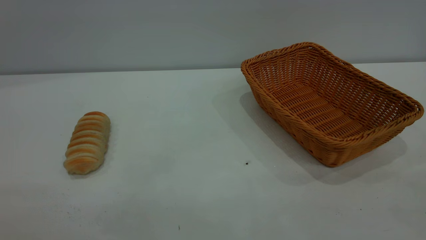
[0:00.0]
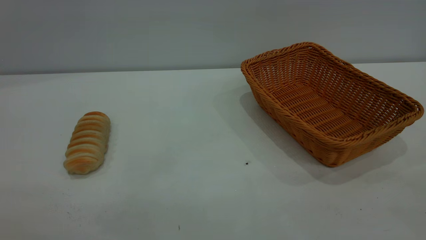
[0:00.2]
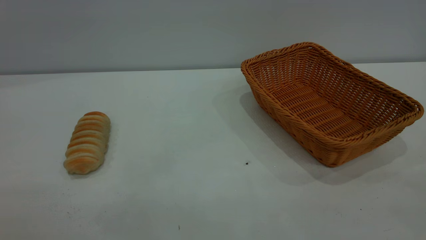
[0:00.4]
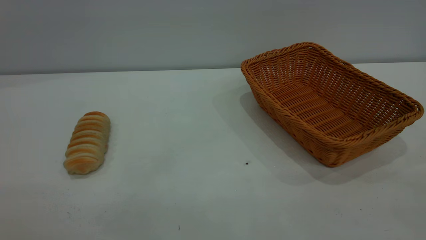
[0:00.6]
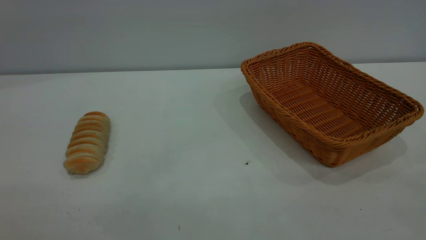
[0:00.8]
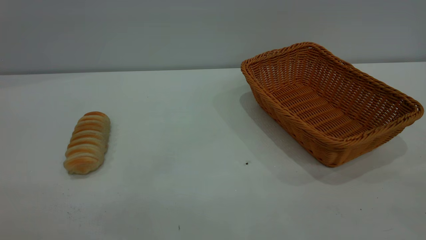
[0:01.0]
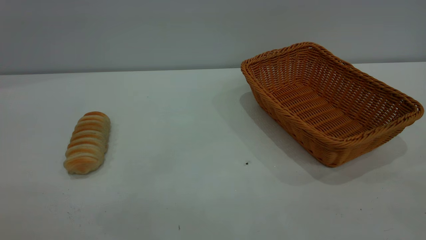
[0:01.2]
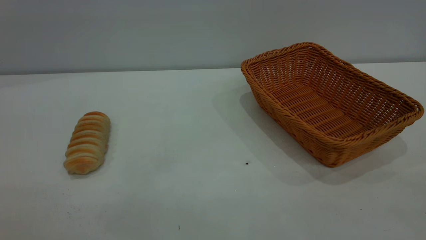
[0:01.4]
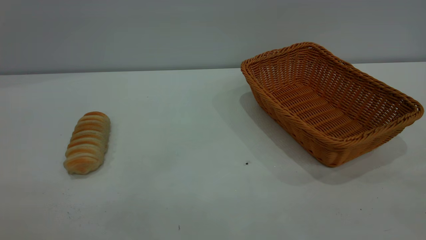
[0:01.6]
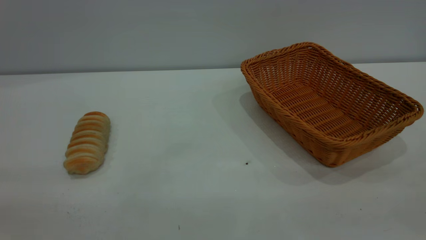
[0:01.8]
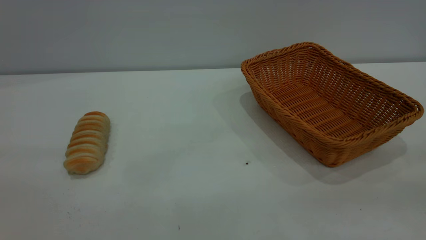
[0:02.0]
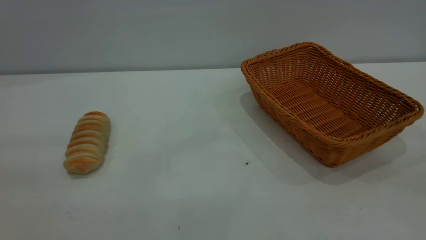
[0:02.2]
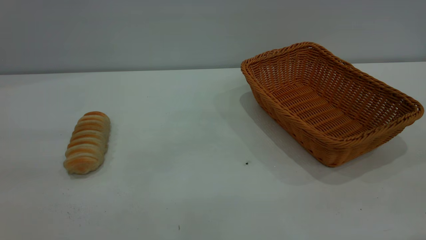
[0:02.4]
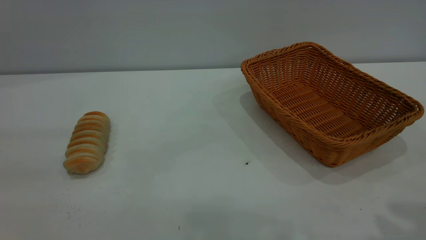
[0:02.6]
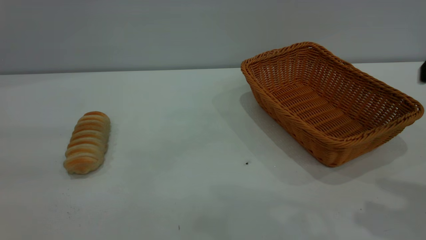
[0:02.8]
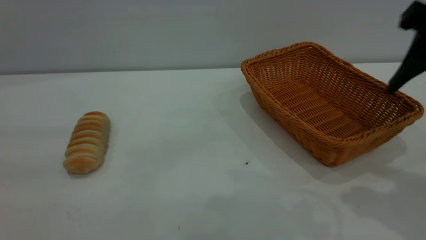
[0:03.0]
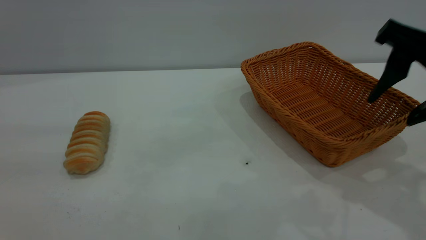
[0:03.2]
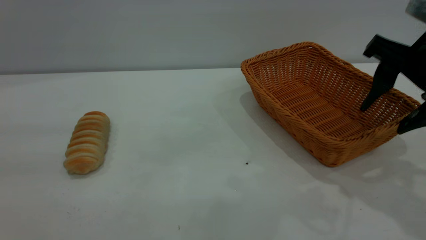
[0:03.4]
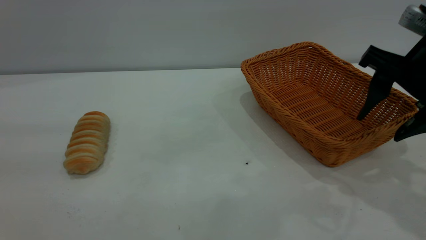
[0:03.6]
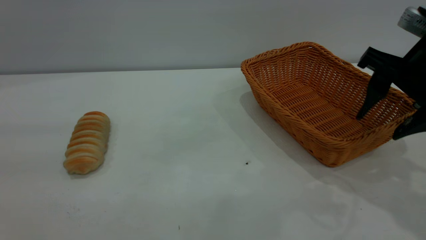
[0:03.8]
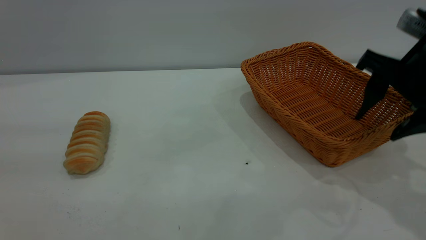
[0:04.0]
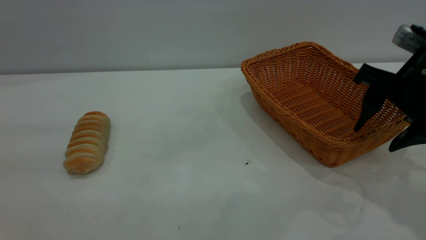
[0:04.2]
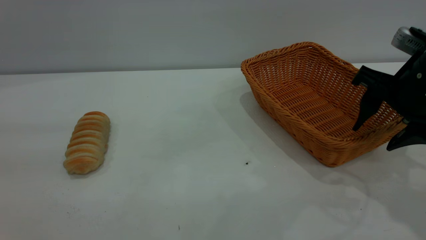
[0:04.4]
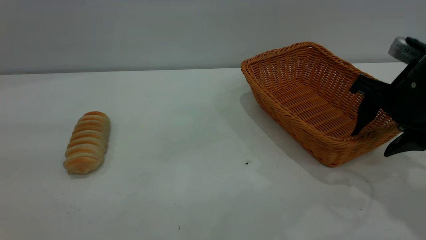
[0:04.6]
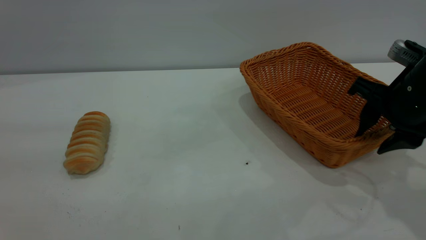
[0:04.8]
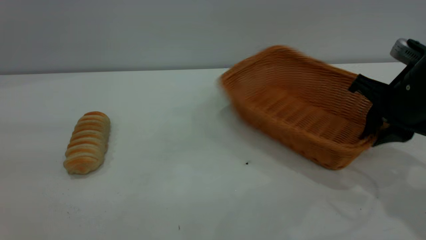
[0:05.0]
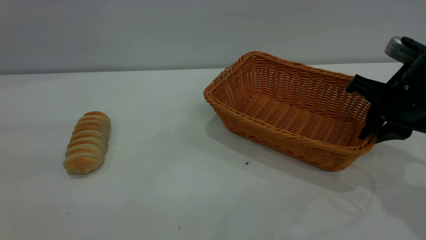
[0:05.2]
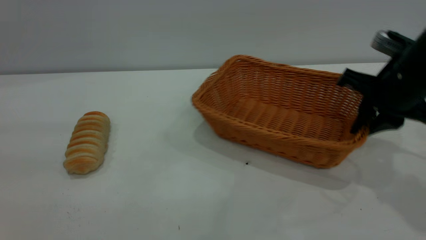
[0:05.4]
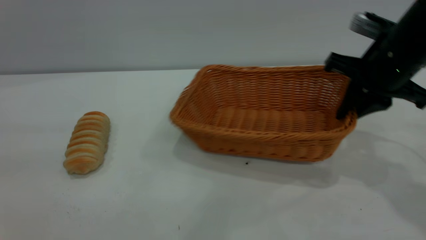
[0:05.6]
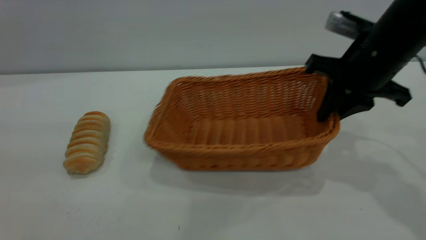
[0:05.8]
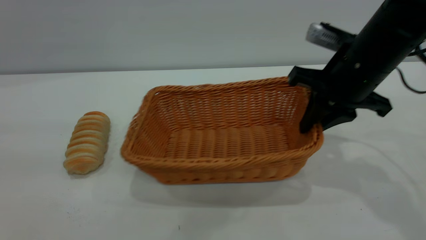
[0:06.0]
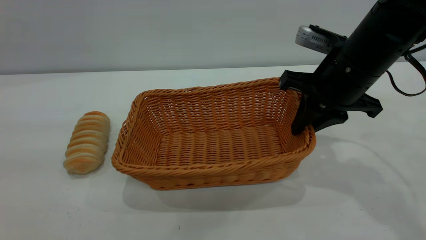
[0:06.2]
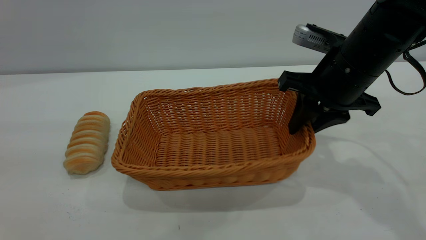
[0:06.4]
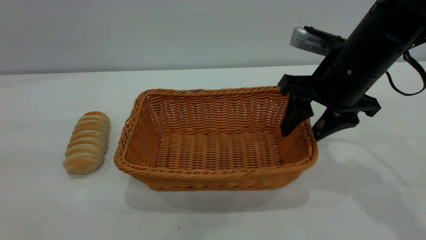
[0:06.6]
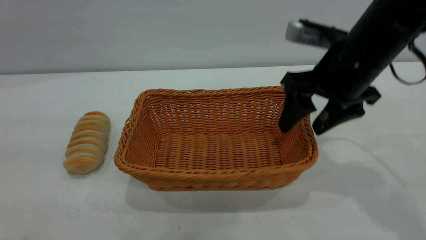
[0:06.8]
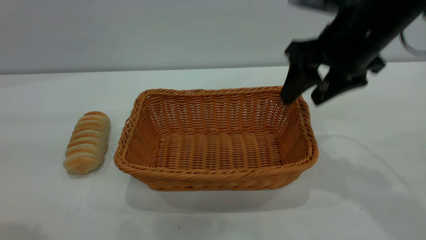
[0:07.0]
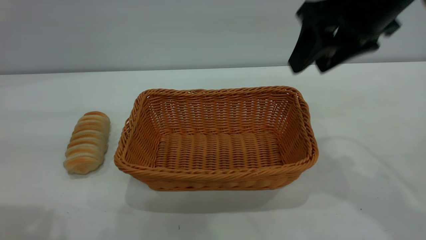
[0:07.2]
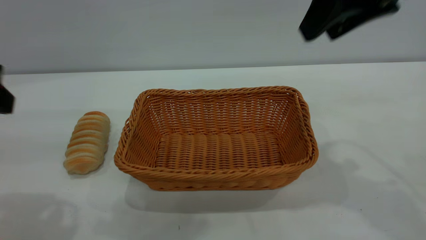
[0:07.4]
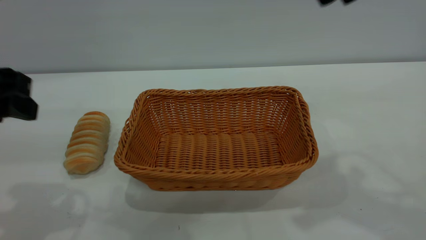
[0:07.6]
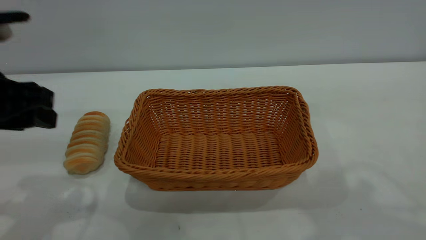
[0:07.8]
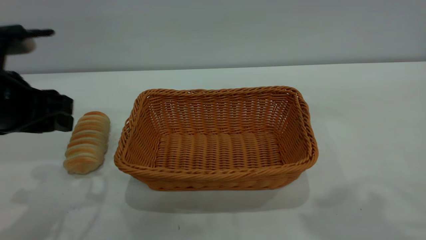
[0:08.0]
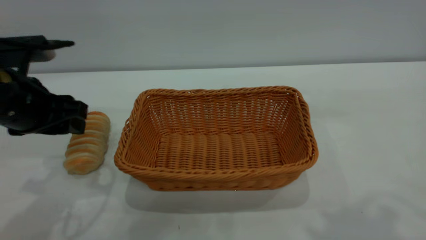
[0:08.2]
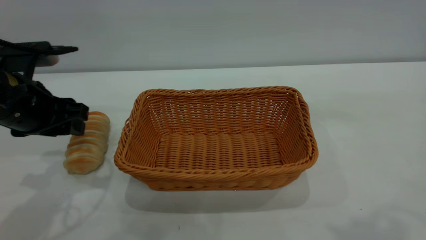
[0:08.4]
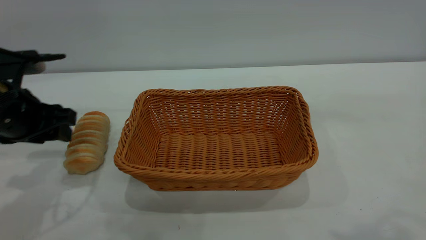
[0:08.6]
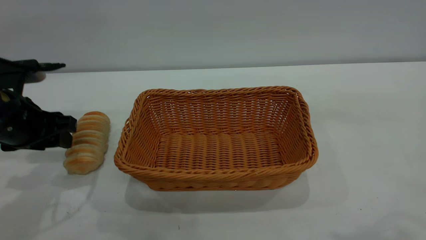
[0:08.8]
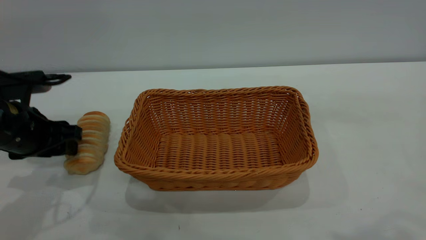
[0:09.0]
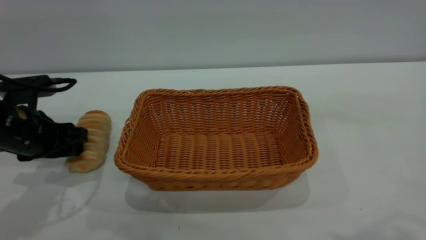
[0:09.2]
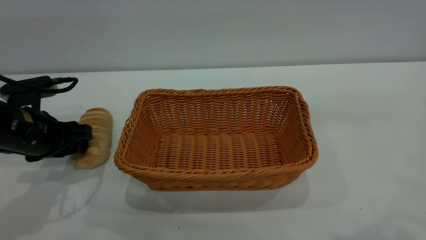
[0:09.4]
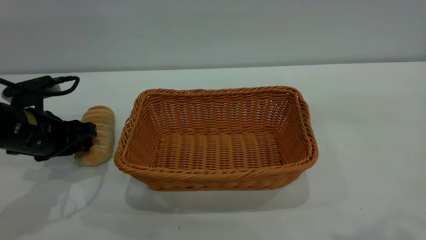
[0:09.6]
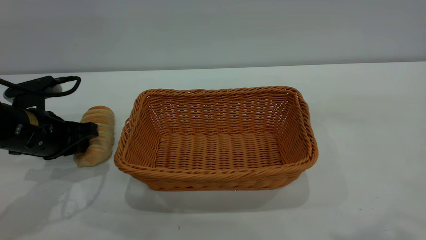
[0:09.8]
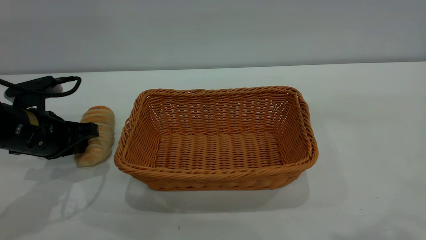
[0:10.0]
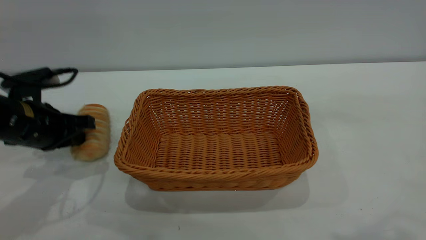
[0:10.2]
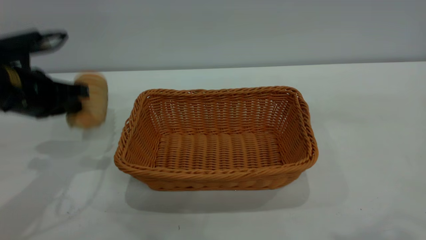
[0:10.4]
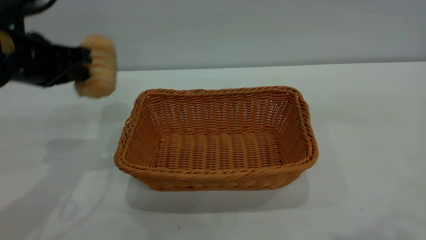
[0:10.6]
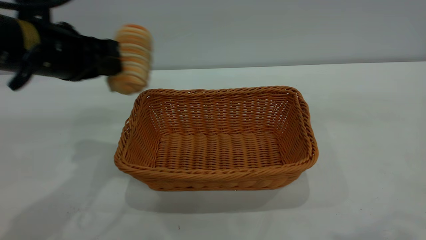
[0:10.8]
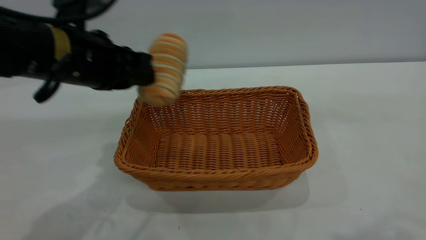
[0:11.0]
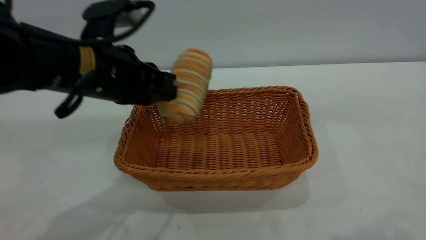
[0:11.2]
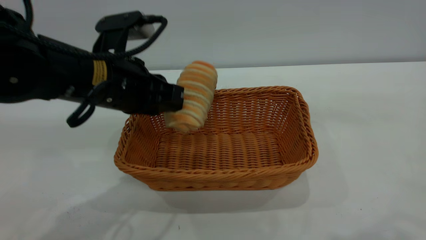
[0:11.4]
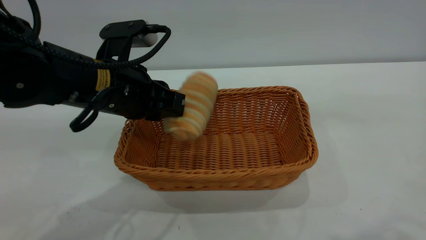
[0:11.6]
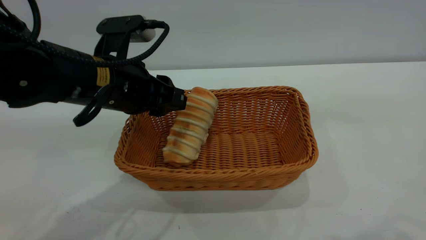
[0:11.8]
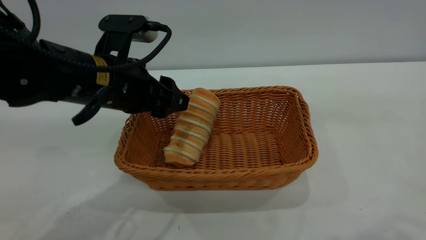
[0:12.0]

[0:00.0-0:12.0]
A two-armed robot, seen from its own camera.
Task of the whole recording: One hand grasps the yellow basket and places it in the middle of the table, while the other hand picks up the long bread and puts it into the yellow basket.
Step, 0:00.0 to 0:07.2: Move the basket to the center of view.
0:01.6 to 0:03.0: The right gripper travels forward by some 25 cm.
0:03.0 to 0:04.4: The right gripper heads downward and forward, covering roughly 10 cm.
0:04.4 to 0:06.0: The right gripper travels to the left by some 5 cm, and closes.
0:06.0 to 0:07.6: The right gripper travels upward and backward by some 20 cm, and opens up. Meanwhile the left gripper shifts roughly 15 cm forward and downward.
0:07.6 to 0:09.0: The left gripper goes roughly 15 cm downward and forward.
0:09.0 to 0:10.4: The left gripper travels upward by about 5 cm, and closes its fingers.
0:10.4 to 0:12.0: The left gripper moves to the right, roughly 15 cm, and opens.

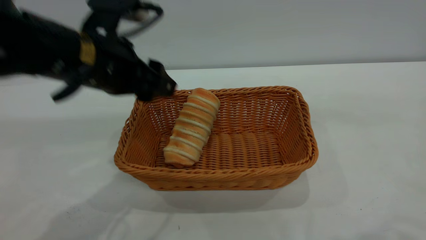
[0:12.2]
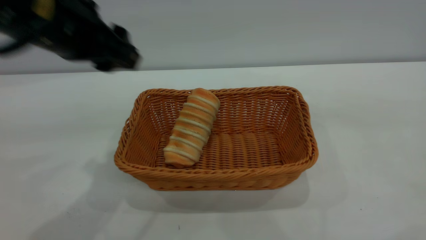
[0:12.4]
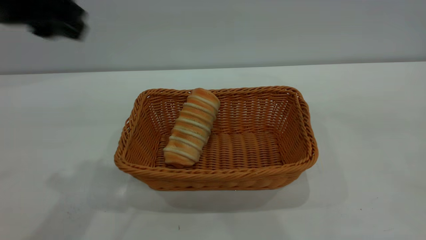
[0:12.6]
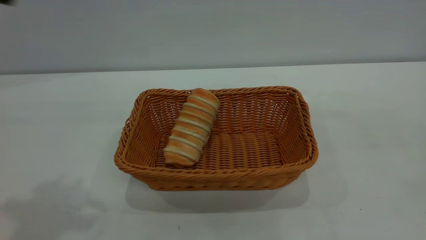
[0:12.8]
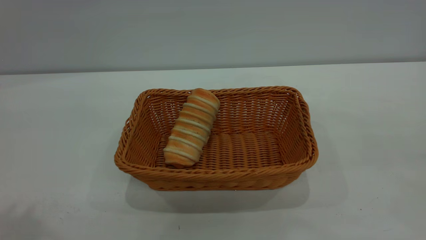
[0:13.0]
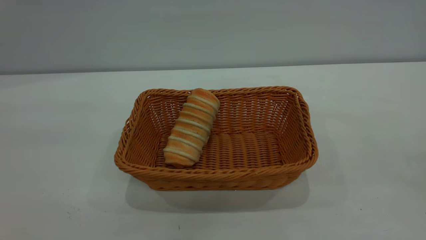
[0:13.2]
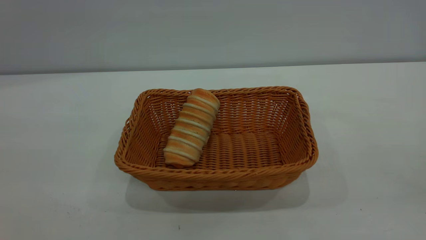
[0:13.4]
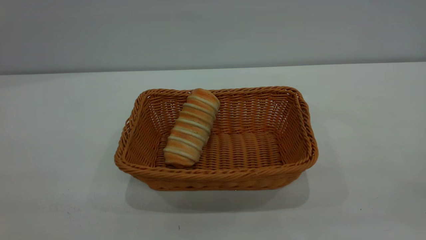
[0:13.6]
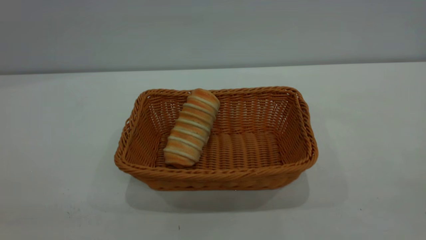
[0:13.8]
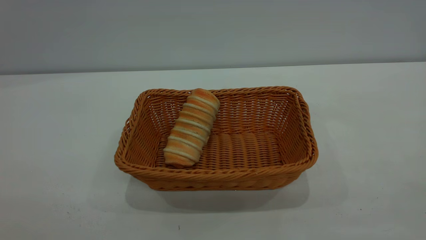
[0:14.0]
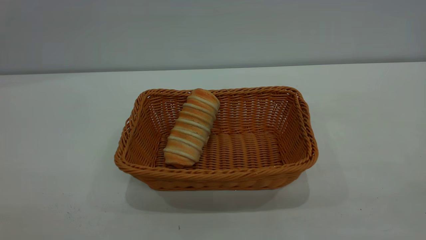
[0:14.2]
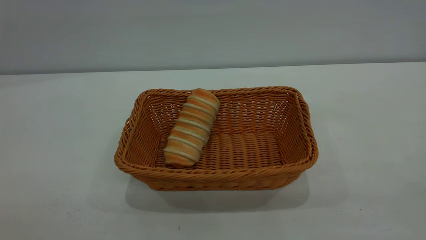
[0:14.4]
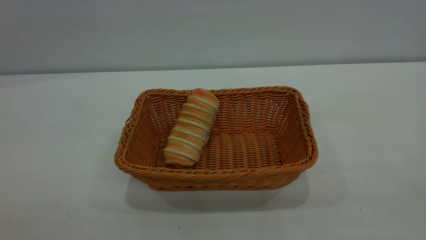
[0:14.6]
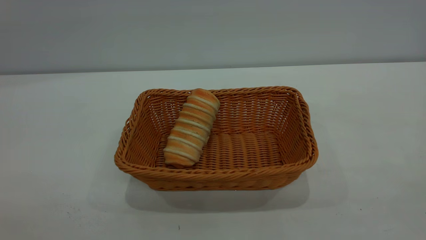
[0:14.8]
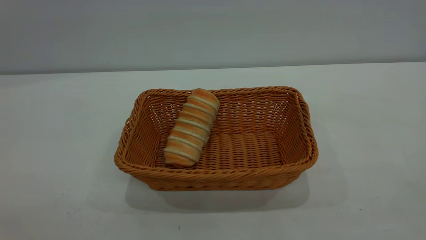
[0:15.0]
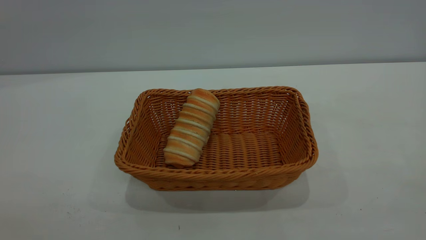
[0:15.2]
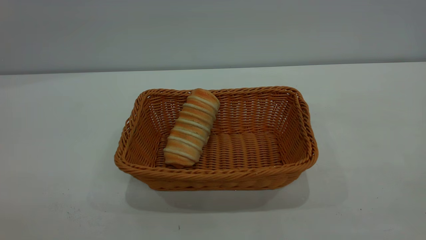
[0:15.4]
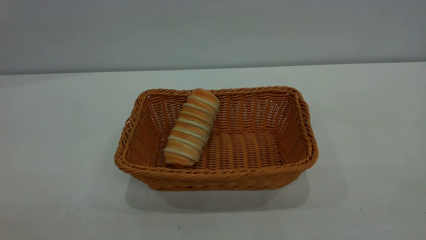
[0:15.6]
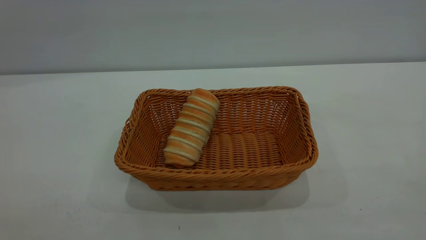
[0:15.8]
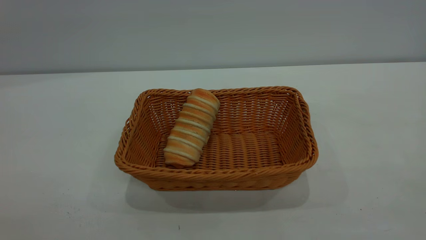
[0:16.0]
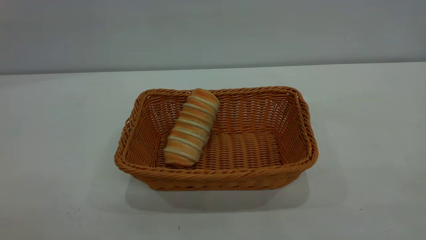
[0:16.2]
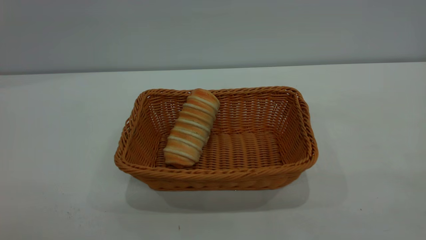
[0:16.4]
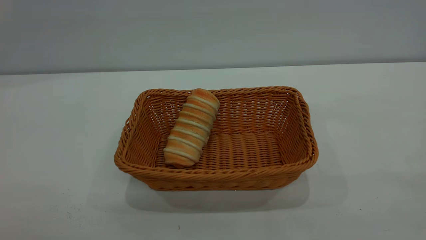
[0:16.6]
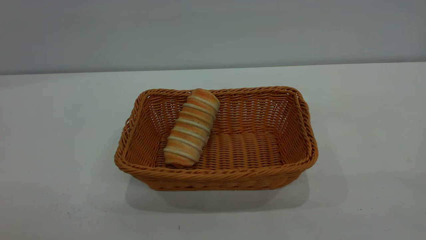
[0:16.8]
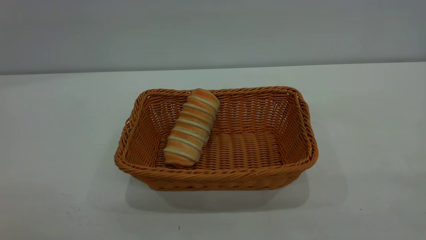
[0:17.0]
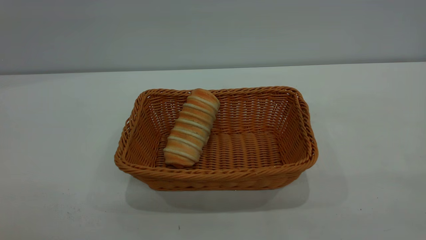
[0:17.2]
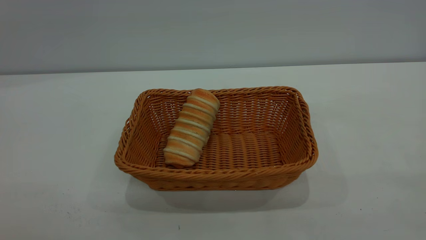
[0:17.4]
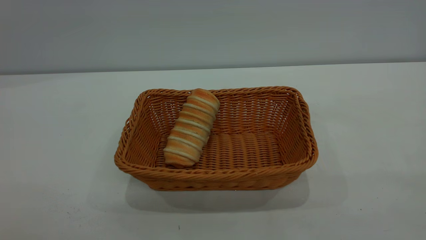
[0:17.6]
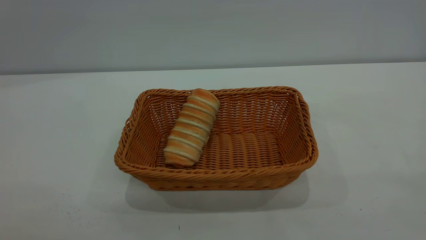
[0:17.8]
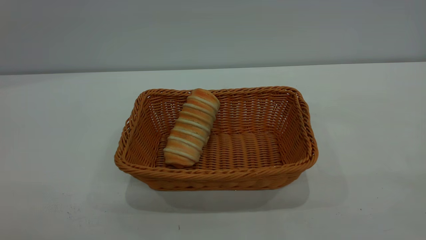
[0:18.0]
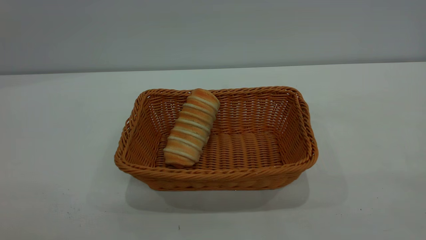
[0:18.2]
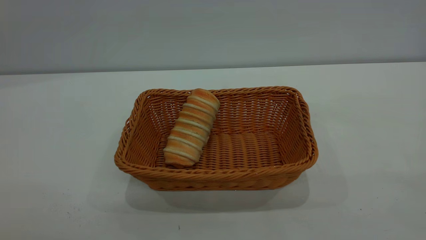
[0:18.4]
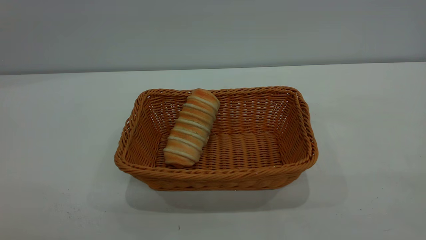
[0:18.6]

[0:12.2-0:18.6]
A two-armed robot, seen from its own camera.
Task of the whole recording: One hand grasps the yellow basket and places it in the middle of the table, while the other hand picks up the long bread and puts it into the yellow basket.
0:12.2 to 0:13.8: The left gripper travels backward, upward and to the left by roughly 40 cm, and closes up; the right gripper travels backward, downward and to the right by roughly 20 cm.
